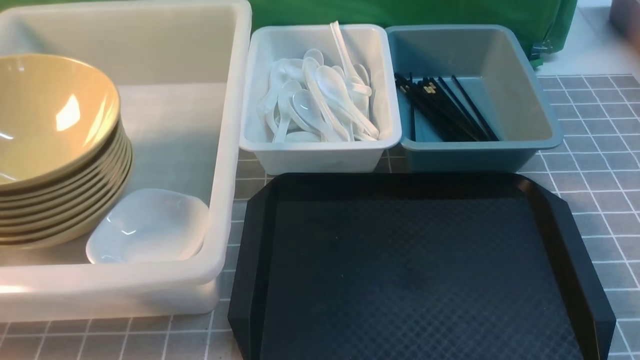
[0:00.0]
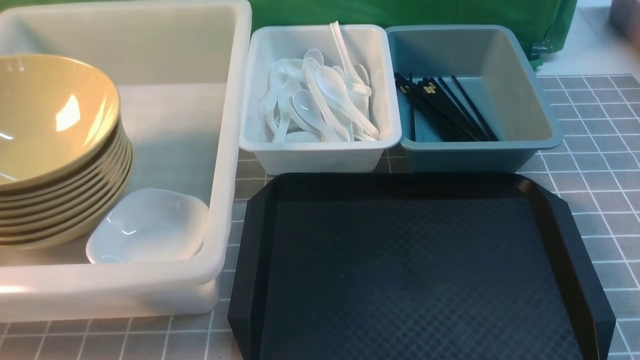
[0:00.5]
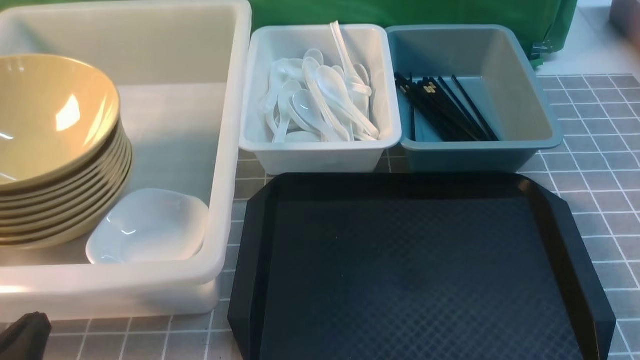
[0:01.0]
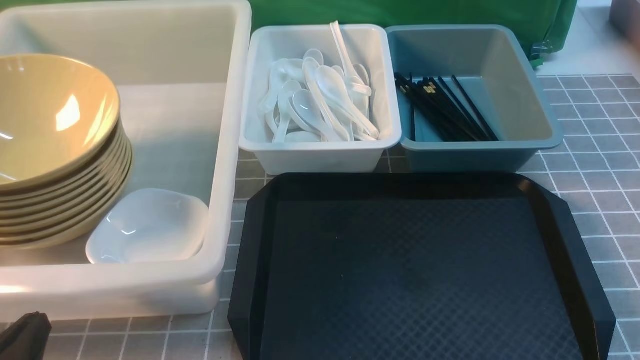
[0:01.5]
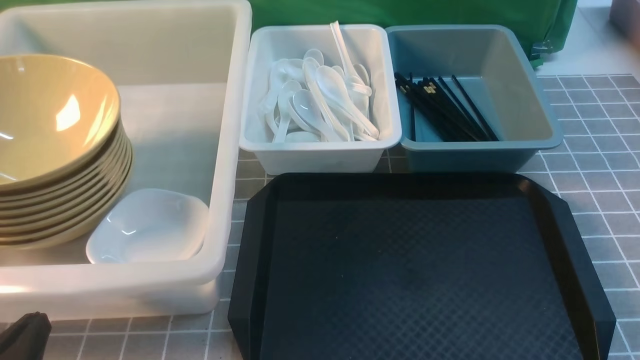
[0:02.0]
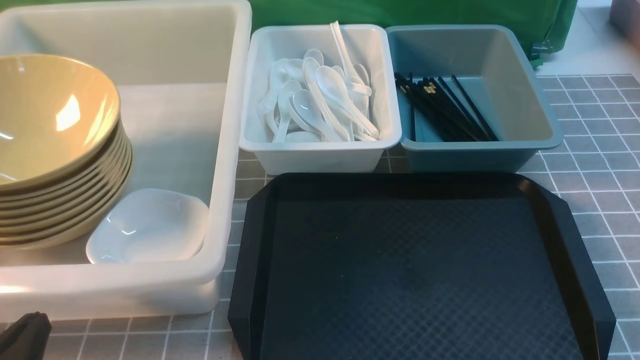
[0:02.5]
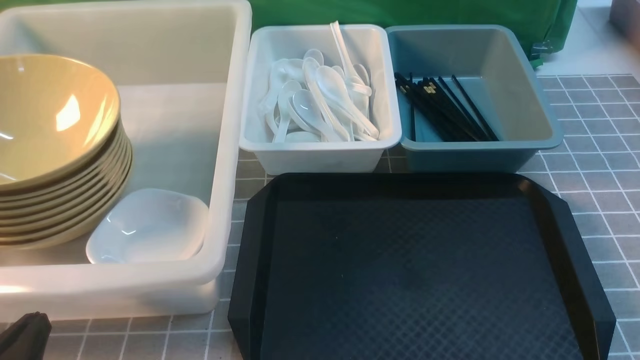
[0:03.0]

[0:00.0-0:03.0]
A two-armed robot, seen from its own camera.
Task of the whole recording: on grey table put chopsticks spoon bowls plates into blue grey white boxes.
0:00.0 to 0:01.5: The left gripper shifts roughly 5 cm downward.
0:01.5 to 0:03.0: Both grippers stay put.
